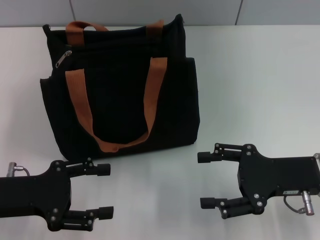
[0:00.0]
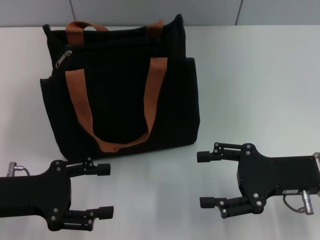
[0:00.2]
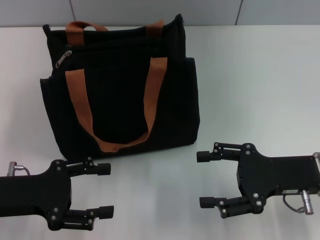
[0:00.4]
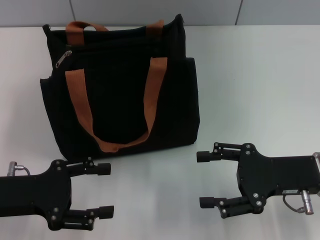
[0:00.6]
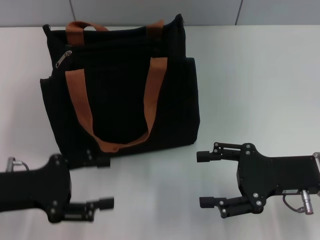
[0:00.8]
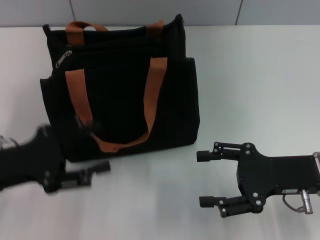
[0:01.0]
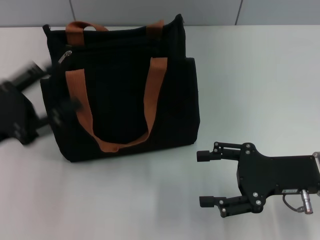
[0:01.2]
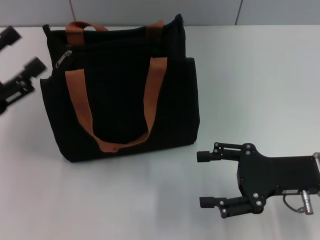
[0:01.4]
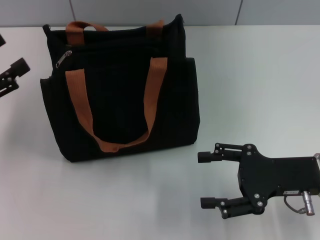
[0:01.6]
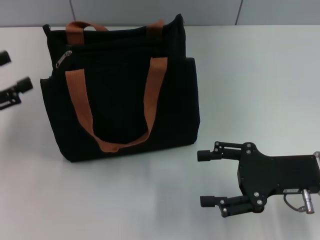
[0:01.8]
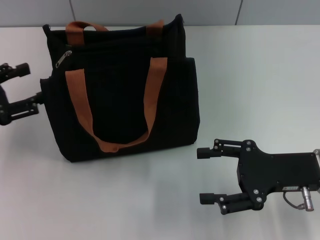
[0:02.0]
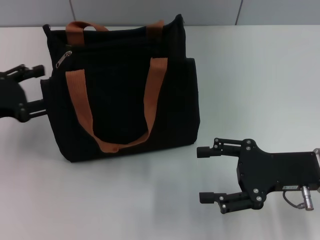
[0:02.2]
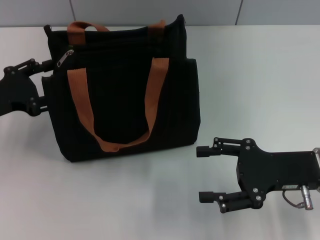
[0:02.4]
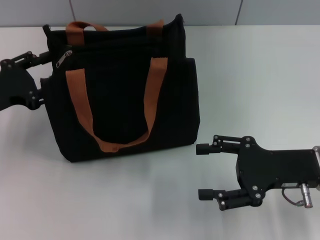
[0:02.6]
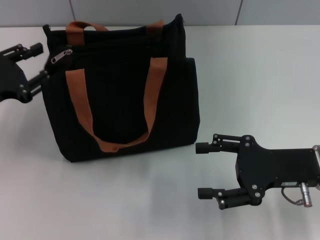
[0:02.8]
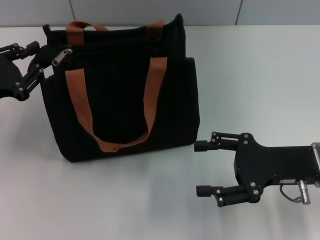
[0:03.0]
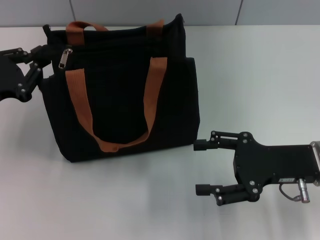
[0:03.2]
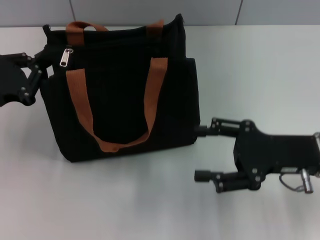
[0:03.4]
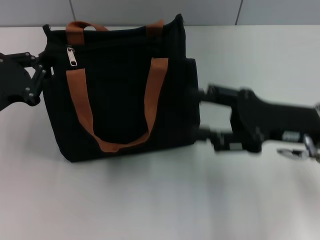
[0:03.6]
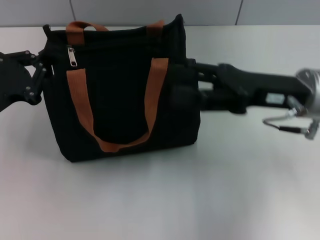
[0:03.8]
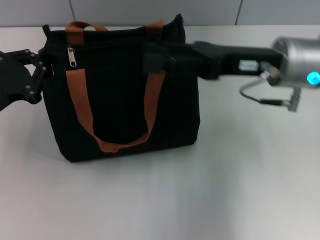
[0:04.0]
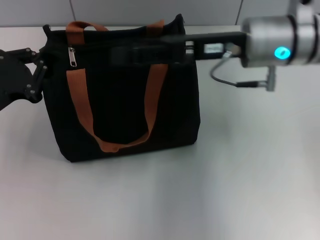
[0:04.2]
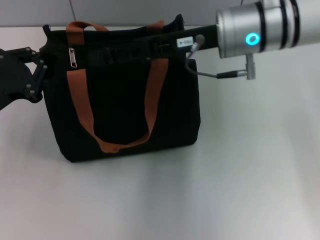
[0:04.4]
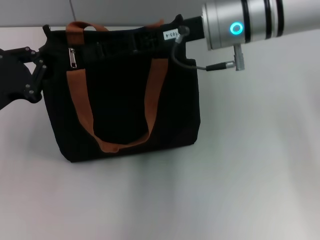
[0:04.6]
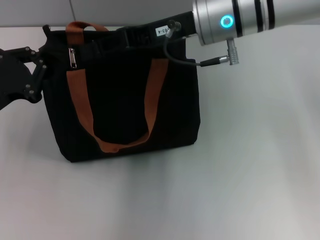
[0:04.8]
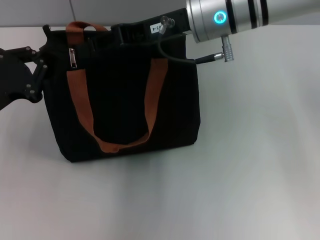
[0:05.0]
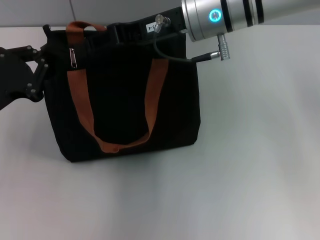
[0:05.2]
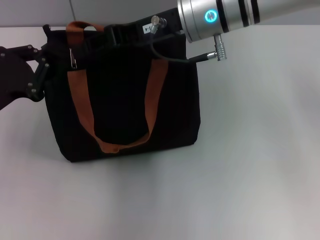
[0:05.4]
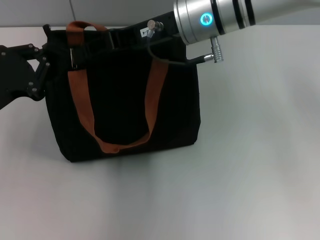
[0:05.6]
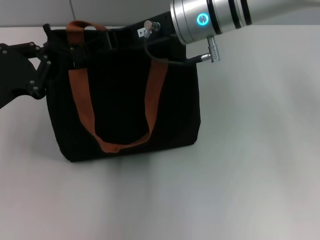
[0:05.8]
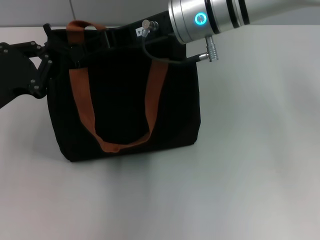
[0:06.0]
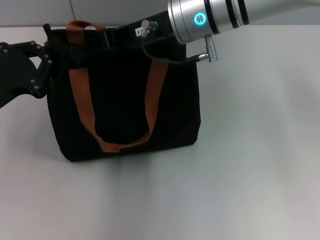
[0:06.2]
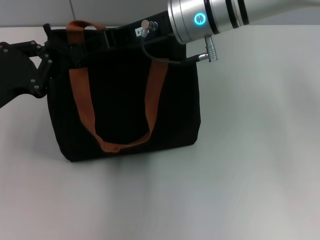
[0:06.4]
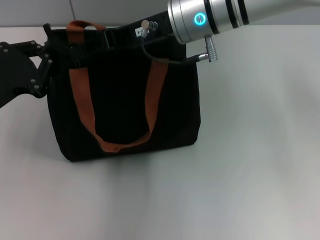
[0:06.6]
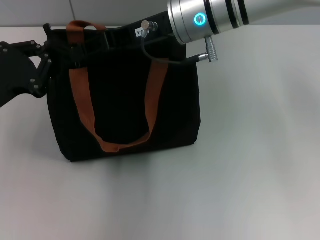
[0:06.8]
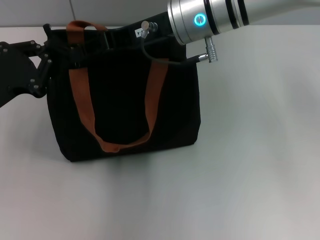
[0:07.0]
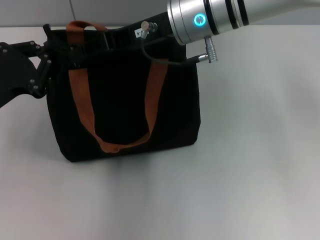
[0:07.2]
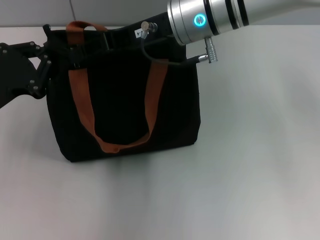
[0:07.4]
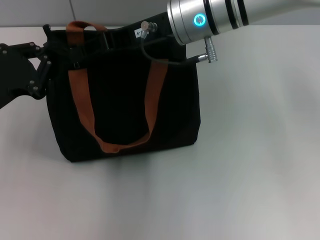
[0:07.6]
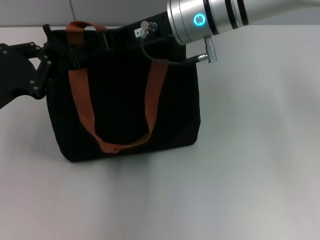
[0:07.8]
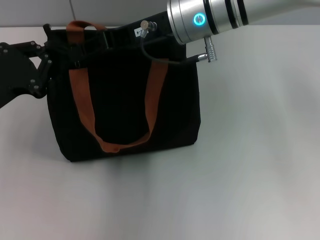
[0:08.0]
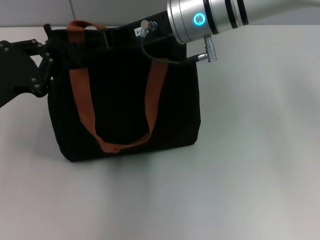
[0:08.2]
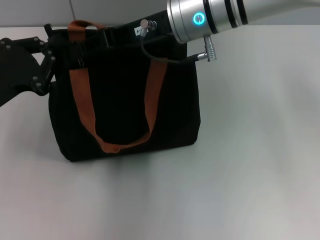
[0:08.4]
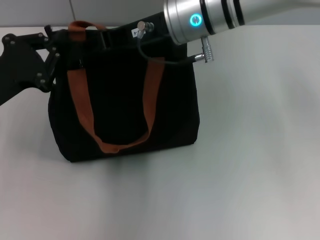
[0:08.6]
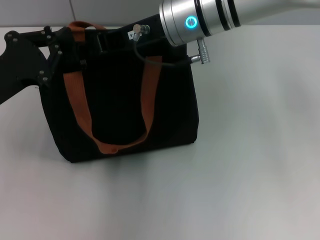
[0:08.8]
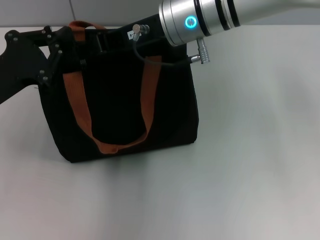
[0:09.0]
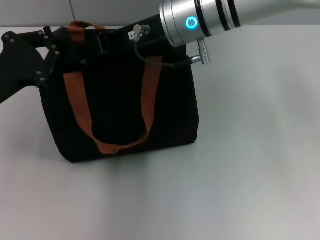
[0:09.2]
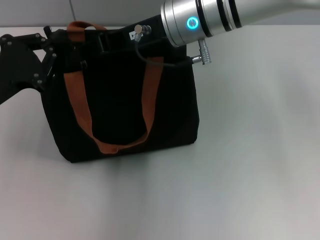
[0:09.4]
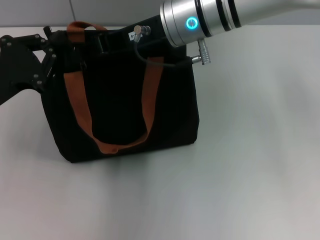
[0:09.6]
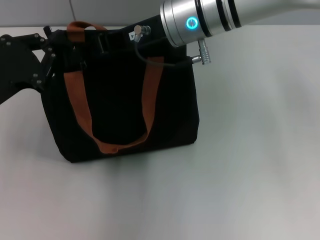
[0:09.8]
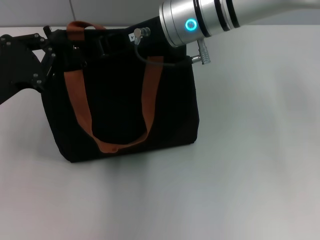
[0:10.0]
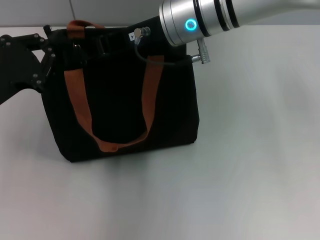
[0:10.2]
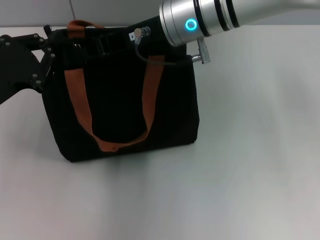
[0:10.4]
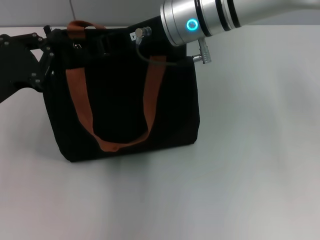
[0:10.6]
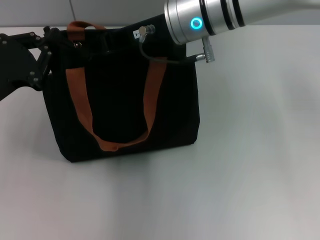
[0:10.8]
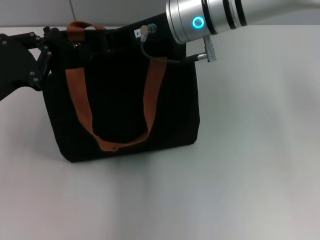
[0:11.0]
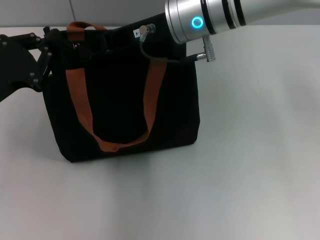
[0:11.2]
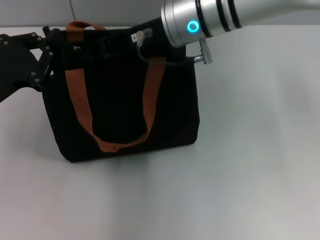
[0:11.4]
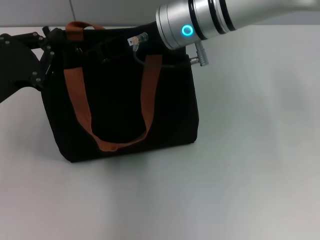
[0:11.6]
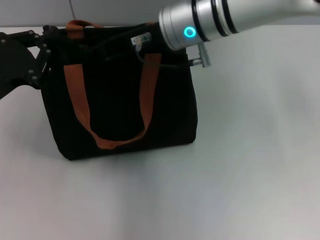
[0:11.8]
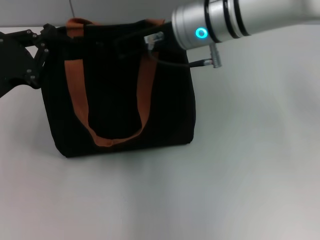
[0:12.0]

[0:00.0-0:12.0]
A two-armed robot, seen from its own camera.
0:00.0 to 0:01.6: The left gripper goes some 5 cm to the left.
0:01.6 to 0:03.0: The left gripper moves about 5 cm.
0:03.0 to 0:04.4: The left gripper closes its fingers. The right gripper shifts approximately 20 cm to the left, forward and upward.
0:04.4 to 0:06.0: The right gripper moves to the left, approximately 5 cm, and closes.
0:06.0 to 0:07.6: The two grippers keep their place.
0:07.6 to 0:09.0: The grippers stay close to where they were, moving slightly.
0:09.0 to 0:10.4: The right gripper closes up.
0:10.4 to 0:12.0: The grippers stay close to where they were, moving slightly.

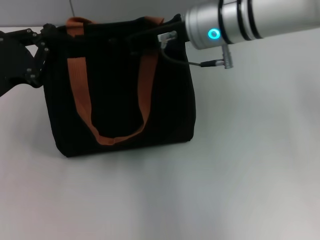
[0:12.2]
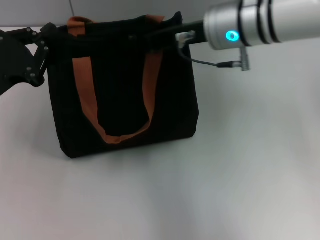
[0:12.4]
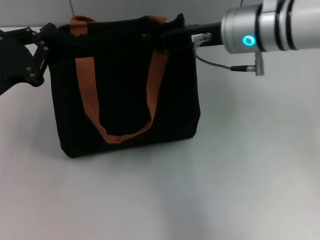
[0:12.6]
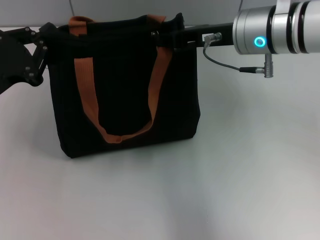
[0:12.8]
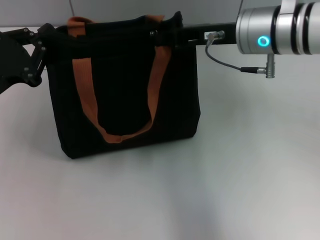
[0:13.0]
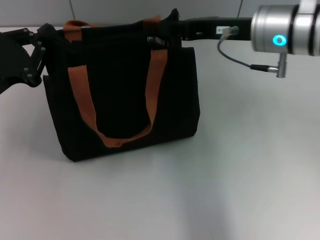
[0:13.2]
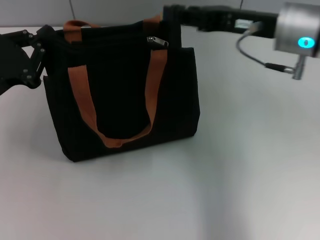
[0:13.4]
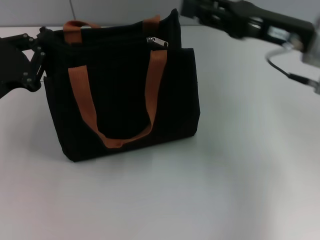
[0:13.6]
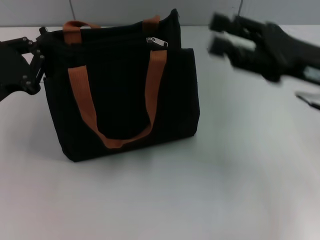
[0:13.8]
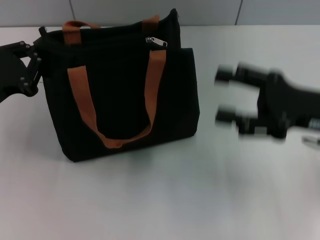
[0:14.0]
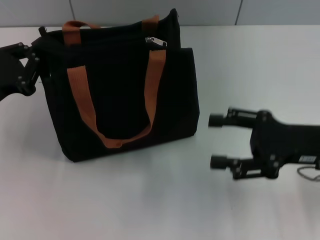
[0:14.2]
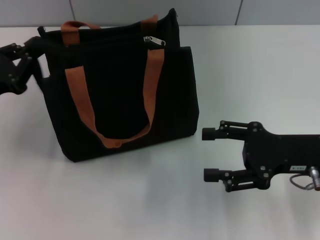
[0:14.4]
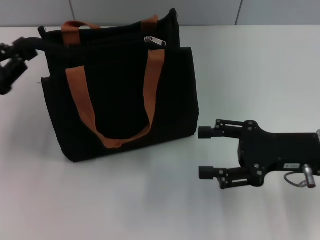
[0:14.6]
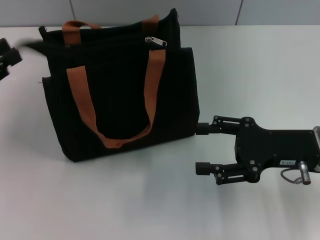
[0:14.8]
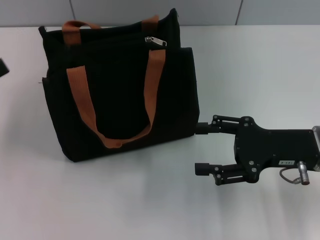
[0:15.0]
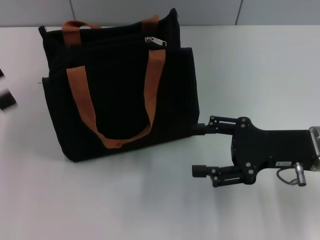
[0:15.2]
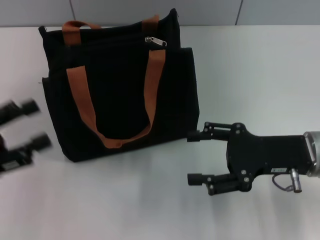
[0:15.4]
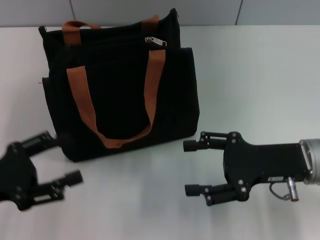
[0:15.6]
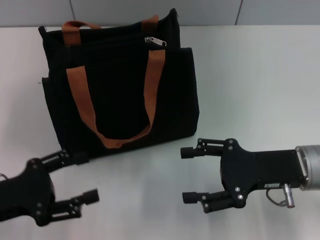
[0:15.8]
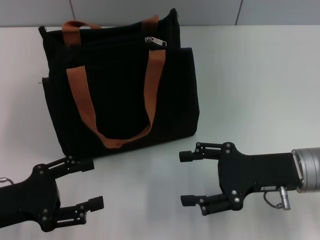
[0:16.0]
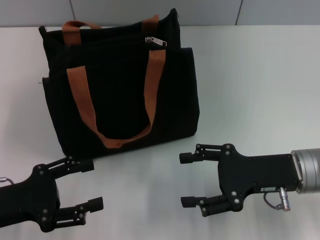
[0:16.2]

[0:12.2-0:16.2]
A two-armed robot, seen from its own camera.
Step, 0:13.4 to 0:14.8: Grab the zipper with your left hand.
0:12.2 to 0:13.6: The right gripper heads to the right and backward, covering about 15 cm, and opens.
0:13.6 to 0:14.8: The right gripper goes roughly 10 cm downward and backward, and opens. Meanwhile the left gripper moves to the left, approximately 5 cm.
0:14.8 to 0:16.2: The left gripper travels backward, to the right and downward by roughly 10 cm, and opens its fingers.
